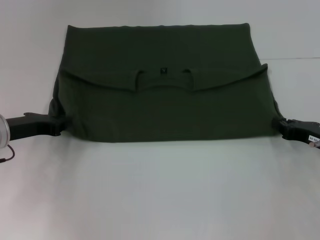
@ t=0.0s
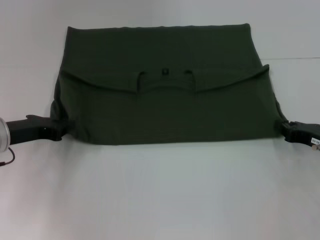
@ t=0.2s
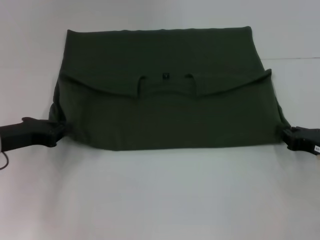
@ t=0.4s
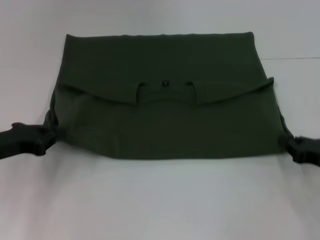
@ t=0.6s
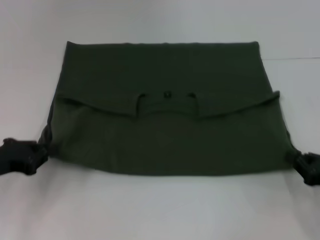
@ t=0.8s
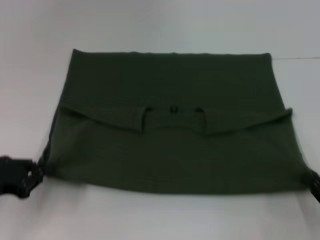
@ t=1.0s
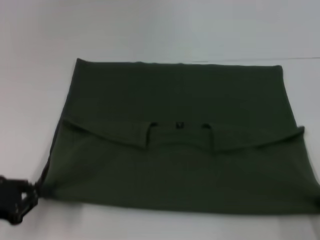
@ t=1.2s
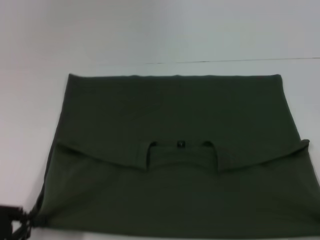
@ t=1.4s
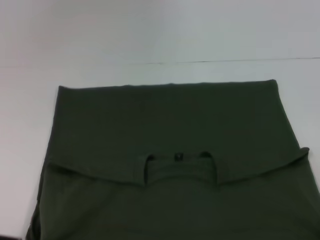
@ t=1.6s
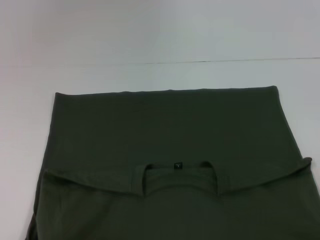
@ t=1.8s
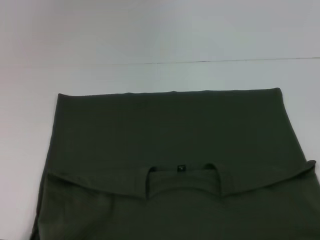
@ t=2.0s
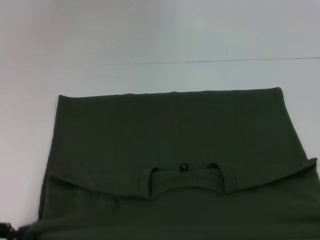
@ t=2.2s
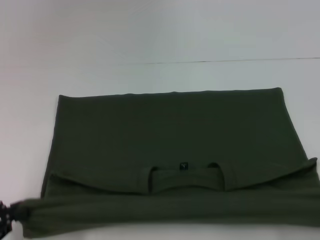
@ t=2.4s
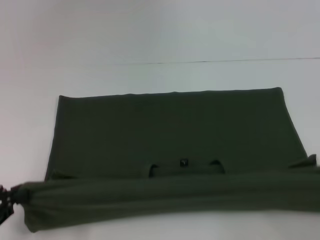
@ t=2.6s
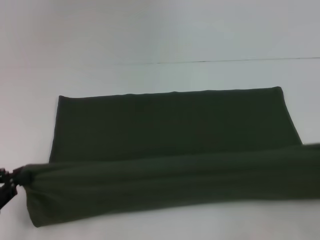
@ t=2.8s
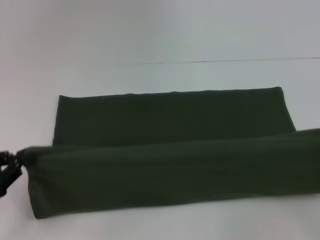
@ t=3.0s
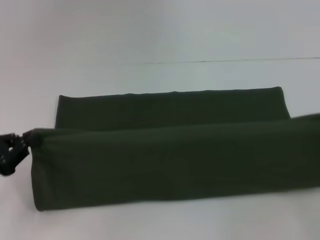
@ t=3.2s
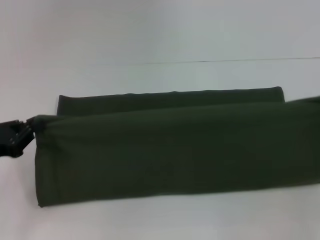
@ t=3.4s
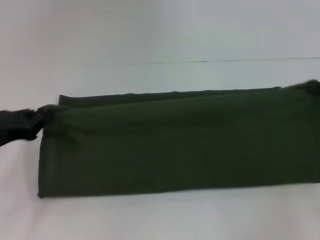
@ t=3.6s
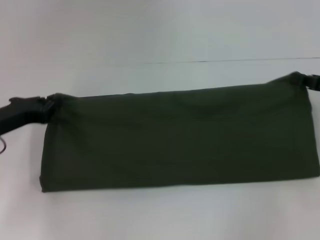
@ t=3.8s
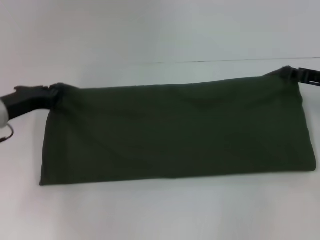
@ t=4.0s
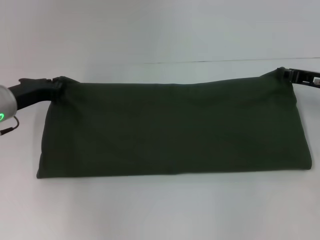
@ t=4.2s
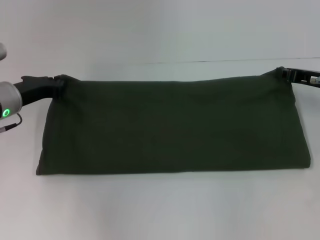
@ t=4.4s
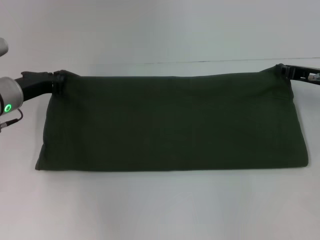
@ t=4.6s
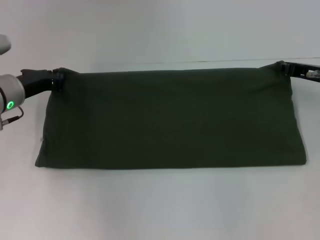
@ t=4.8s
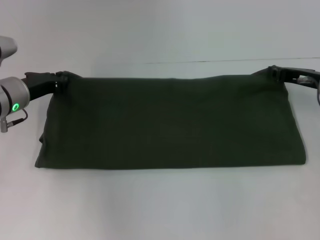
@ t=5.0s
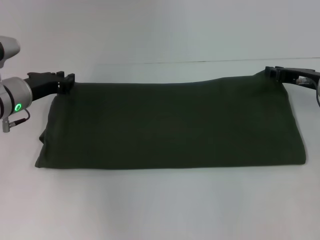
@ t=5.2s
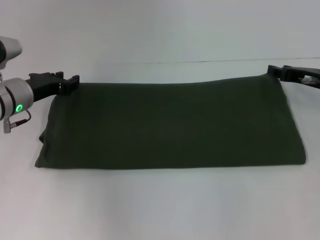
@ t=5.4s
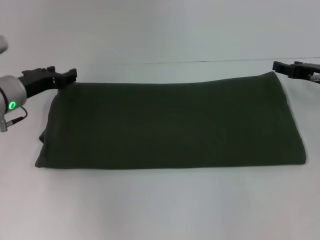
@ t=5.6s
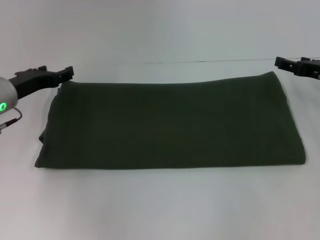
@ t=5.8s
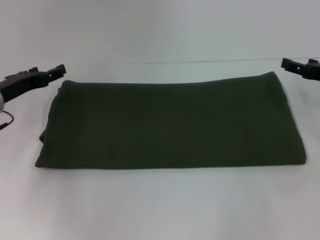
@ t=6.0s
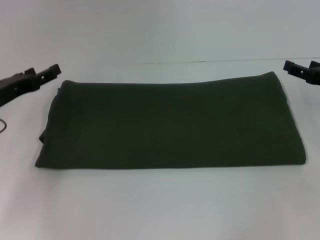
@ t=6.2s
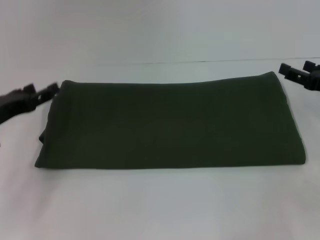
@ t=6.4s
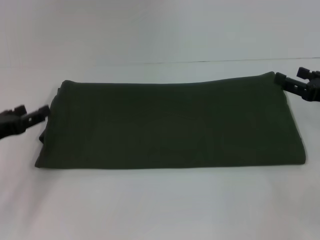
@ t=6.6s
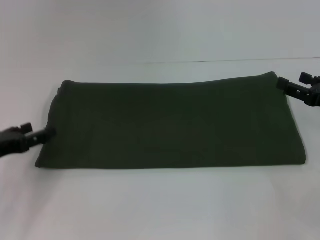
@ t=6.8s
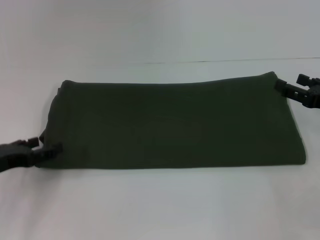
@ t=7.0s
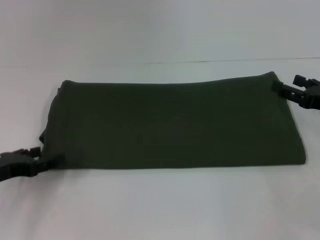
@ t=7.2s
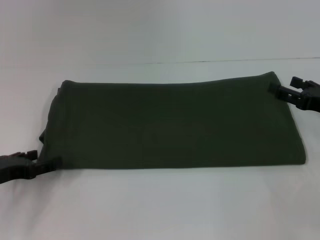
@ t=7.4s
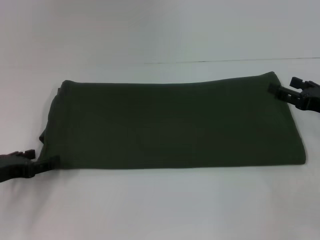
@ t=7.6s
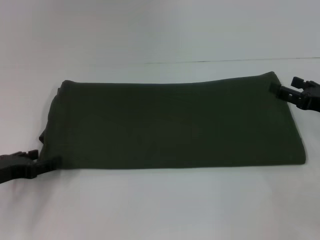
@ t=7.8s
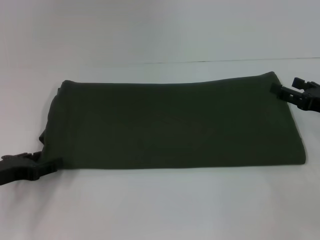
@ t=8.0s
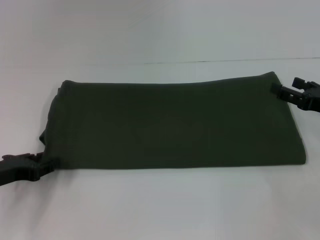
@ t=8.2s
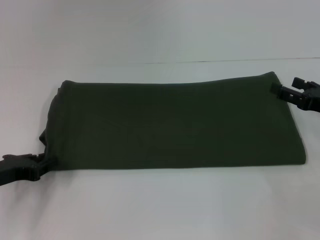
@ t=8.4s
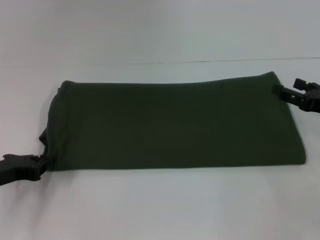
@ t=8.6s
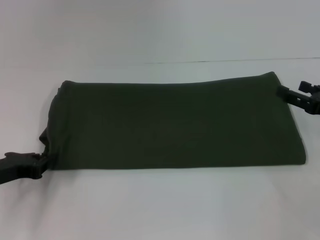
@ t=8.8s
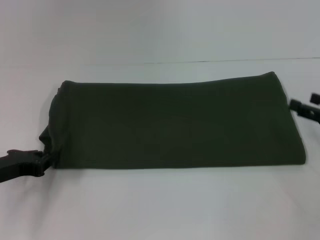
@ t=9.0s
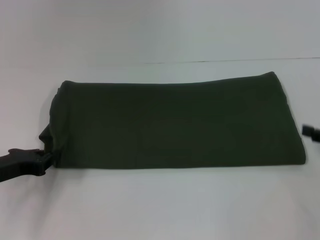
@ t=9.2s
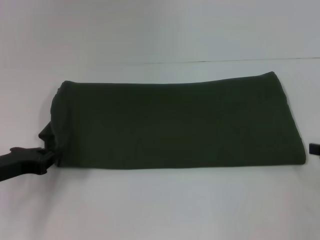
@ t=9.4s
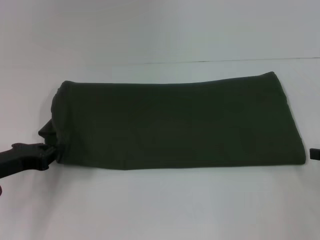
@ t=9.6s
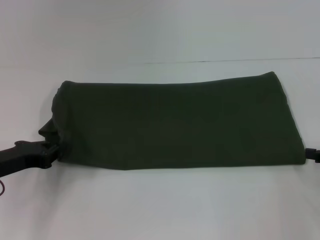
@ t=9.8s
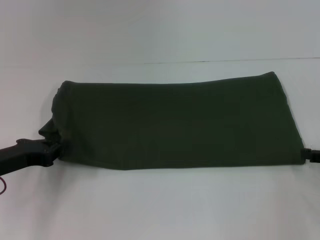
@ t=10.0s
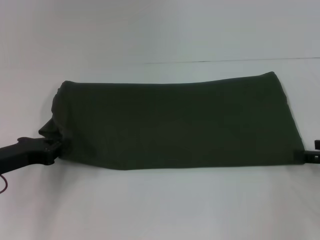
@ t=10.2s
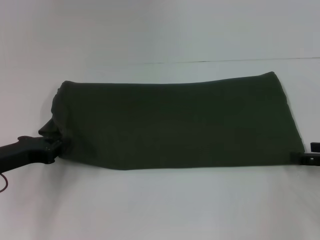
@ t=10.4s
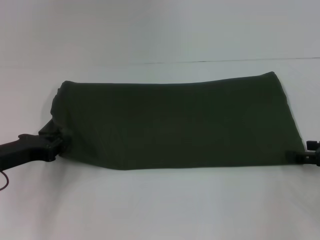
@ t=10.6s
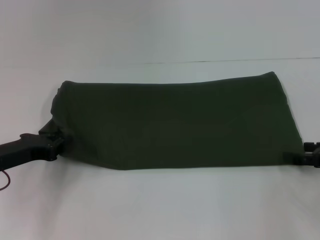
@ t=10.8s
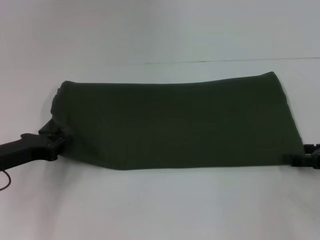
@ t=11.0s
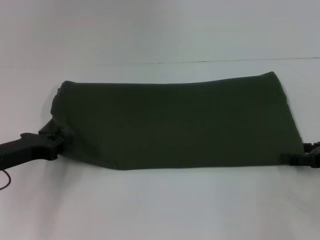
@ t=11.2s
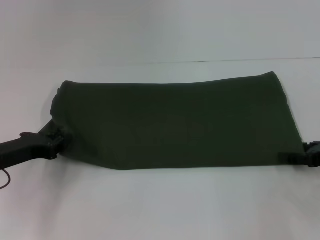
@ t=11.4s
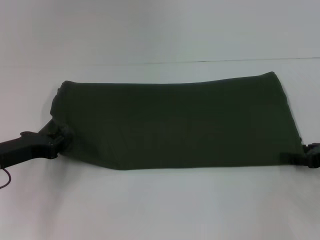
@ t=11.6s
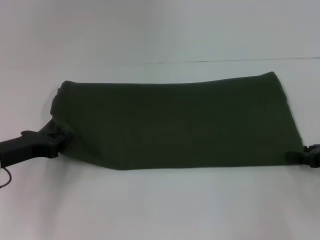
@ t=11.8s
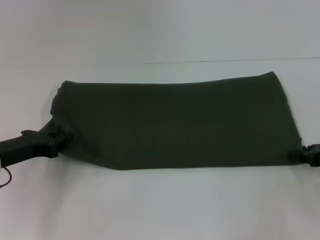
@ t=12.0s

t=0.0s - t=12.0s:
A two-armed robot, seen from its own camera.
Step, t=2.0s - t=5.4s: Fold the clothes with your right hand.
t=0.0s - t=1.6s: The two grippers go roughly 20 cm backward.
t=1.6s - t=3.0s: The right gripper is displaced forward and upward by some 20 cm. Meanwhile the left gripper travels forward by some 5 cm.
t=3.0s - t=4.4s: The left gripper shifts approximately 20 cm forward and to the right; the right gripper moves forward and to the left, some 20 cm.
t=4.4s - t=6.0s: The right gripper opens up; the left gripper opens its fingers.
t=6.0s - t=7.6s: The right gripper goes roughly 5 cm backward. Meanwhile the left gripper moves backward, about 10 cm.

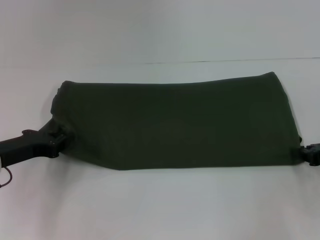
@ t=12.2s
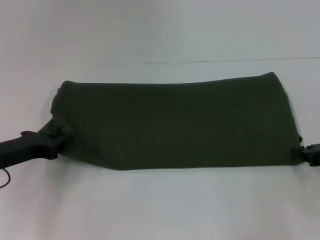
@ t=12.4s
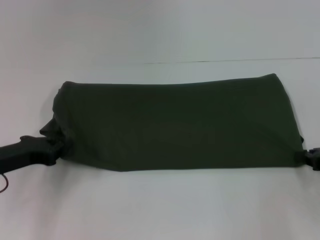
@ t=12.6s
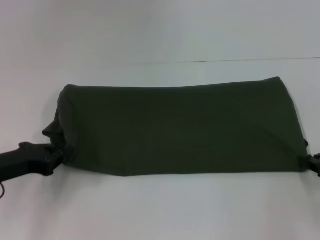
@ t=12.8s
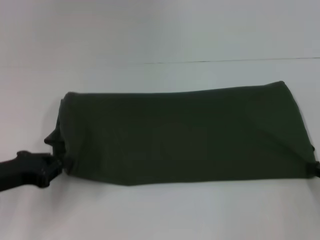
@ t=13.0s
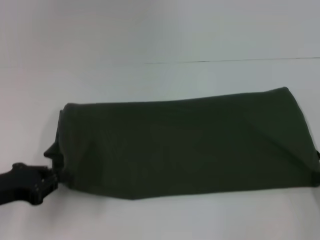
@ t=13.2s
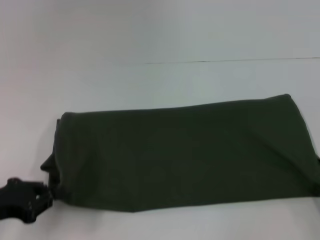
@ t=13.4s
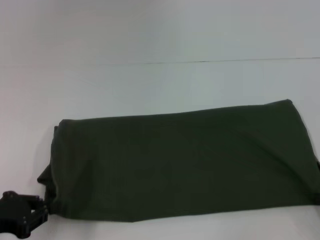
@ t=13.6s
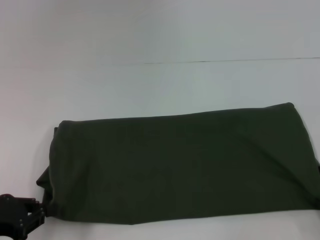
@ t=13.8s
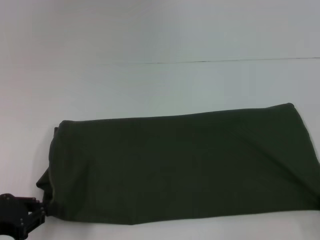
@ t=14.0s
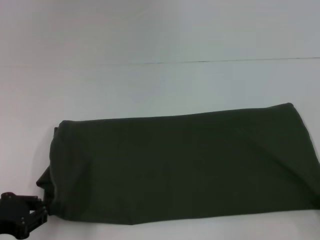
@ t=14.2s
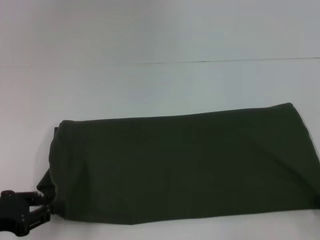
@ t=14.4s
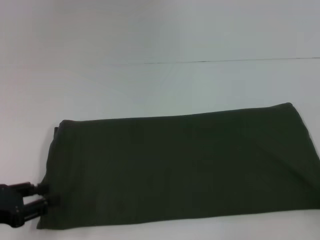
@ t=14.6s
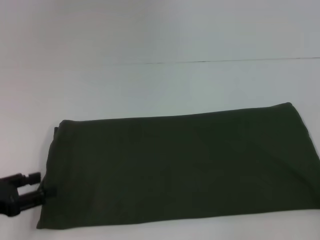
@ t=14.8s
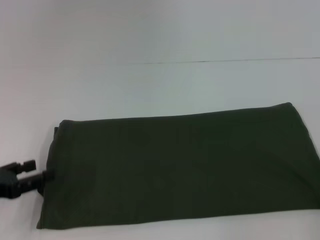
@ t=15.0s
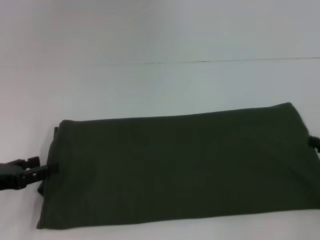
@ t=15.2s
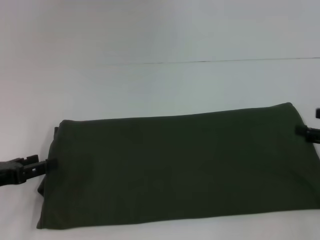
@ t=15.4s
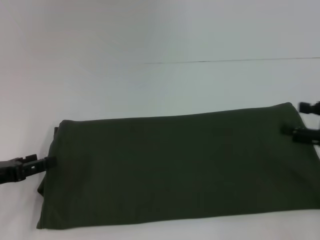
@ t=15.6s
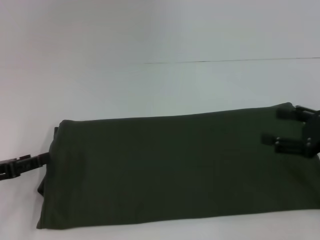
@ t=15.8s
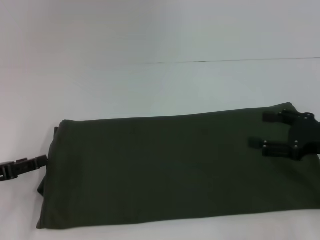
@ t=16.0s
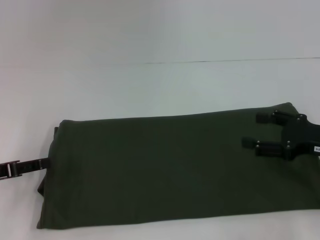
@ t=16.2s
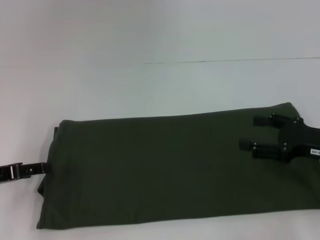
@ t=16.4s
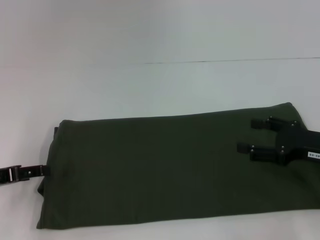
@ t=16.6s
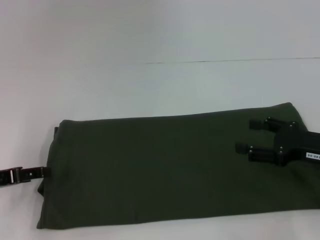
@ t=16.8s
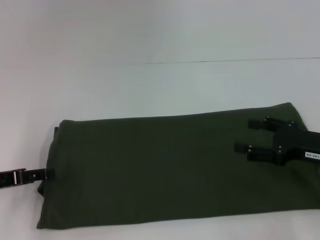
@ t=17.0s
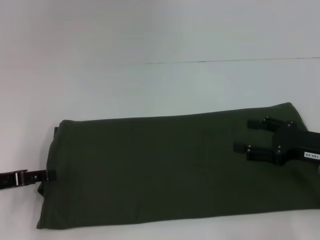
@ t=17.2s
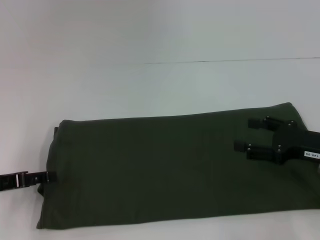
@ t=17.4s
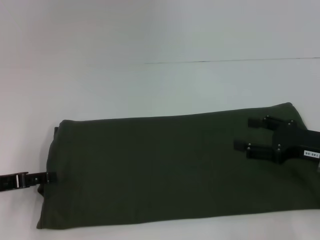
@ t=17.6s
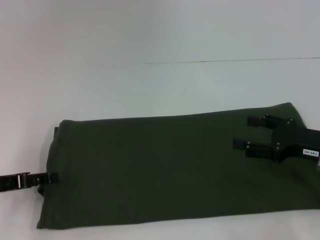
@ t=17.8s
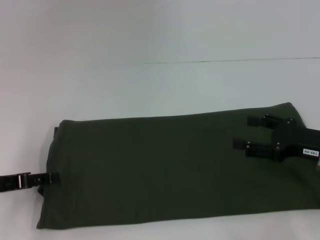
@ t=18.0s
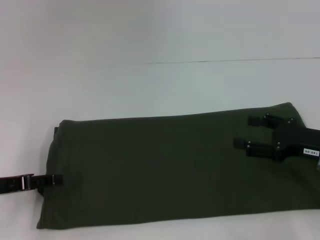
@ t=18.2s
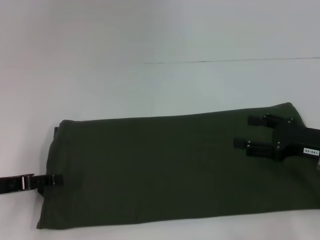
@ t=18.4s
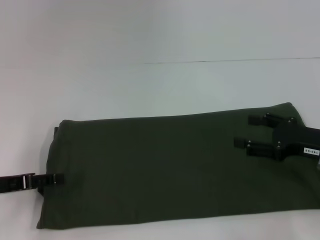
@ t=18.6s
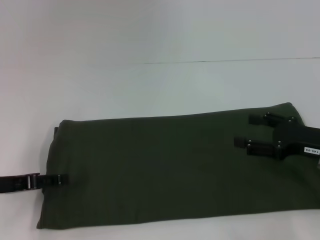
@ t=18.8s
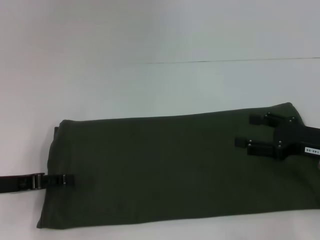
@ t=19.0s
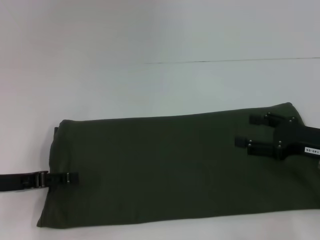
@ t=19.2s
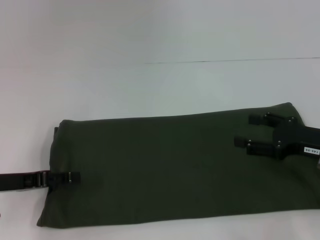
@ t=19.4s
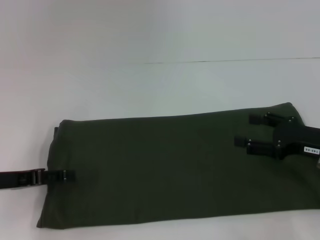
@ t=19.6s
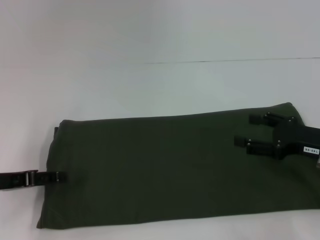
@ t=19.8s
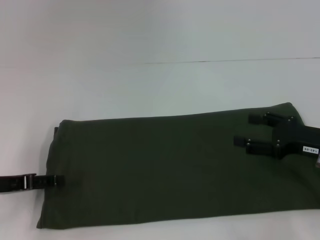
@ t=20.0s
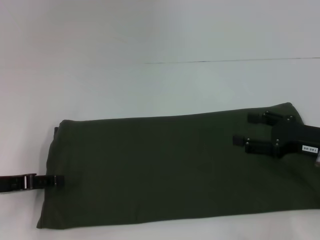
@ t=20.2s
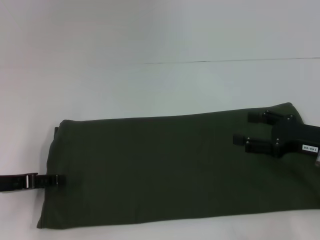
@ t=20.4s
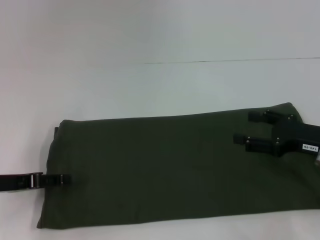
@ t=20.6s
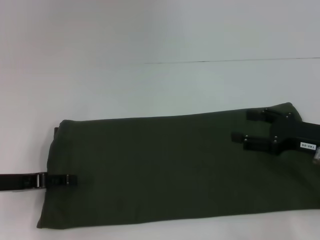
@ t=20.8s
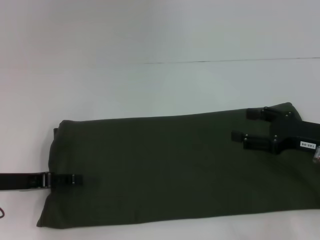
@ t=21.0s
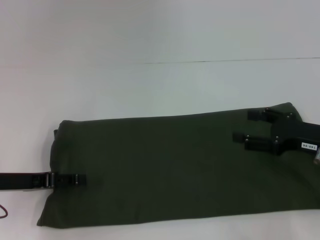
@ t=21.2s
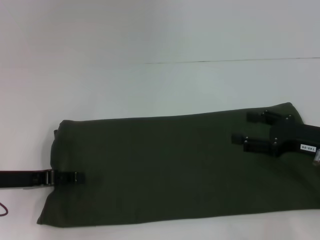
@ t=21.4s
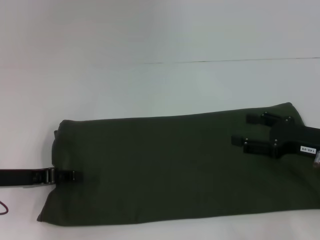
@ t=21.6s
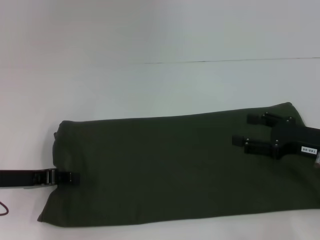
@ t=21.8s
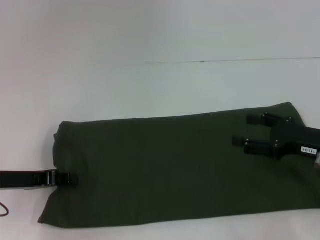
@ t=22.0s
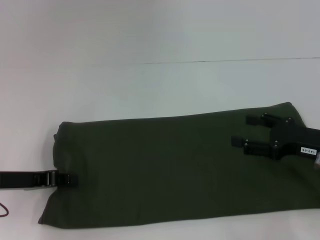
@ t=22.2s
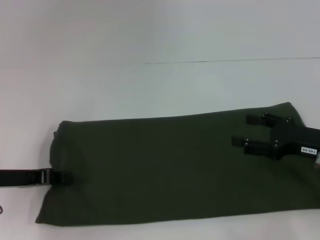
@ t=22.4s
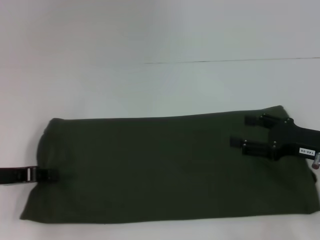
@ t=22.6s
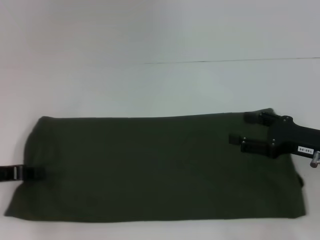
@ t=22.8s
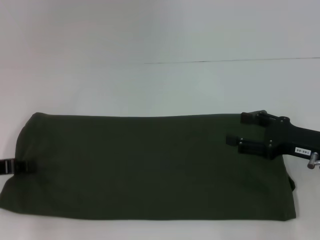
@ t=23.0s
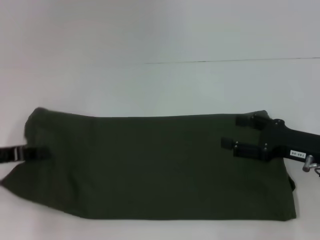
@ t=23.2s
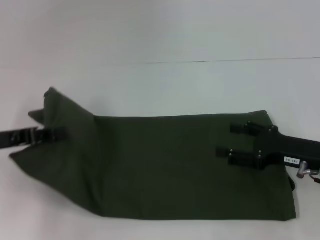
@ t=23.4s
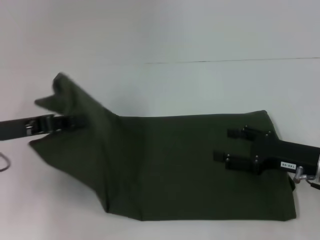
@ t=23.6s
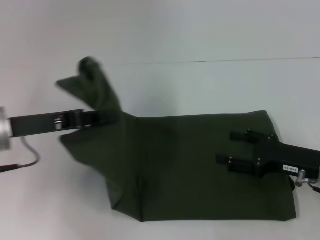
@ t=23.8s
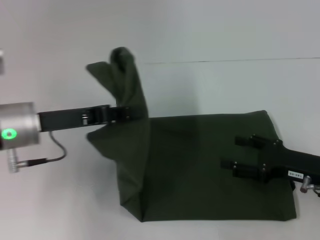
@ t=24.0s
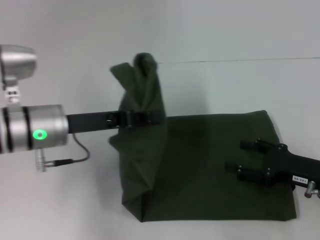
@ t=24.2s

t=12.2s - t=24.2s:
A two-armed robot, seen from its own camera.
t=12.2s - t=13.8s: The grippers both shift backward by about 10 cm.
t=13.8s - t=15.2s: The left gripper opens.
t=15.2s - t=16.6s: The right gripper is displaced to the left by about 10 cm.
t=16.6s - t=21.2s: The grippers make only small movements.
t=21.2s - t=22.6s: The left gripper closes.
t=22.6s - t=24.2s: The left gripper moves to the right, about 10 cm.
